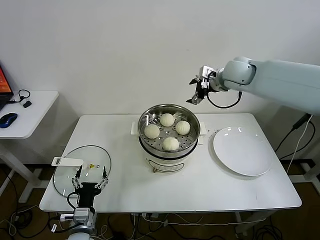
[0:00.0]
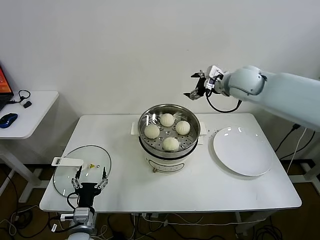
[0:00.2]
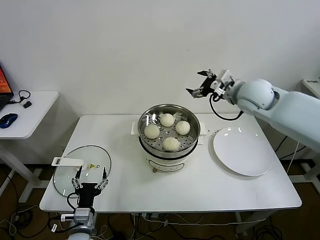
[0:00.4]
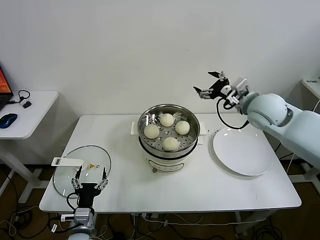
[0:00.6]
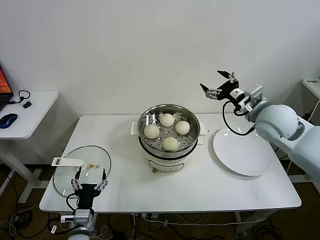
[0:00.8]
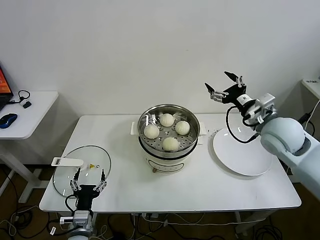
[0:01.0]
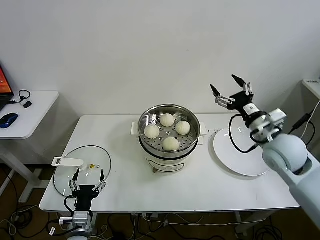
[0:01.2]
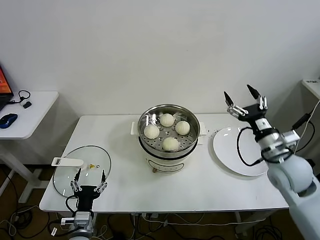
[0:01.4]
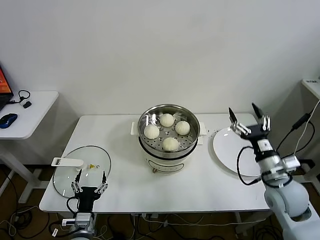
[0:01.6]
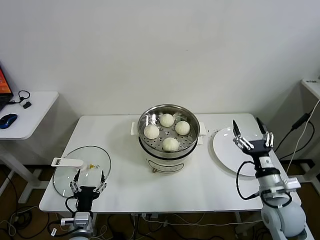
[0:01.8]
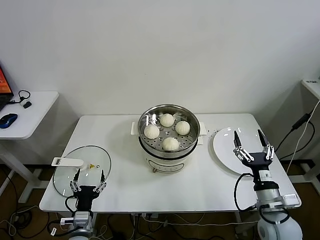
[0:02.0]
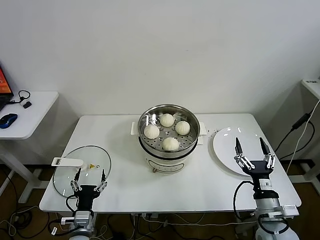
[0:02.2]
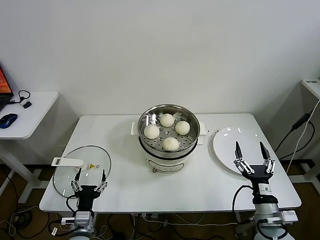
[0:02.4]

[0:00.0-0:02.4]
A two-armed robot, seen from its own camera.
Task of the whole recording: take steamed baozi put them in steamer.
0:00.0 to 0:01.2: The right gripper heads backward and downward, covering about 25 cm.
0:01.2 to 0:02.4: The right gripper goes some 25 cm downward and backward.

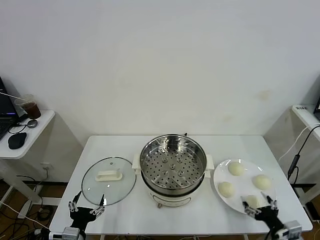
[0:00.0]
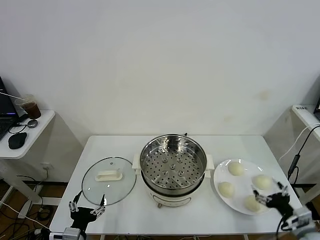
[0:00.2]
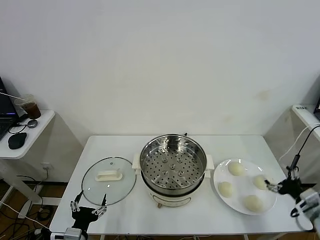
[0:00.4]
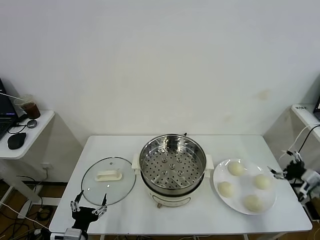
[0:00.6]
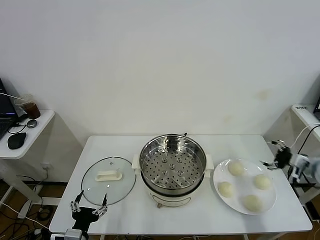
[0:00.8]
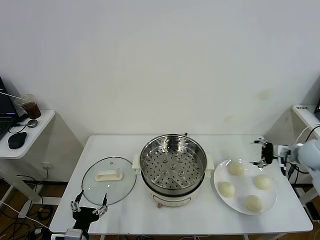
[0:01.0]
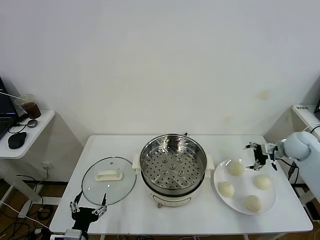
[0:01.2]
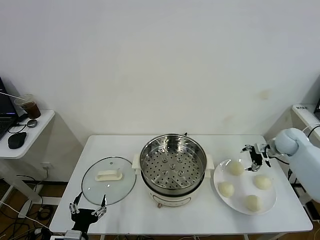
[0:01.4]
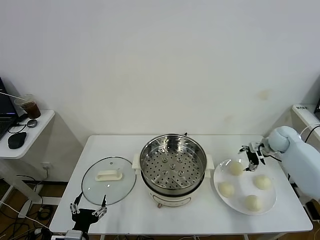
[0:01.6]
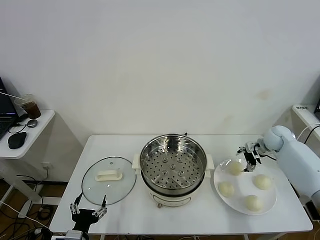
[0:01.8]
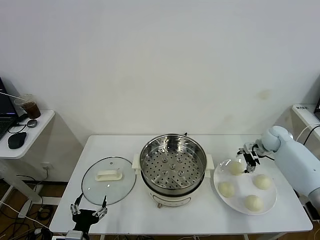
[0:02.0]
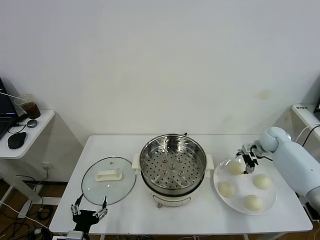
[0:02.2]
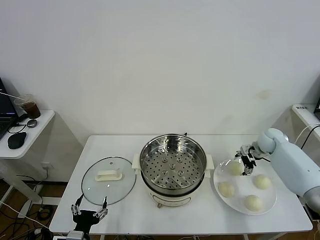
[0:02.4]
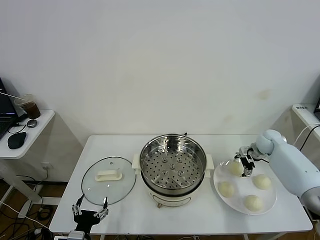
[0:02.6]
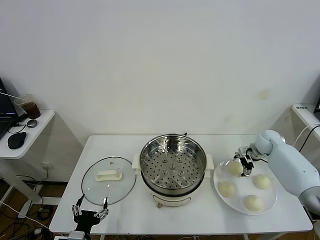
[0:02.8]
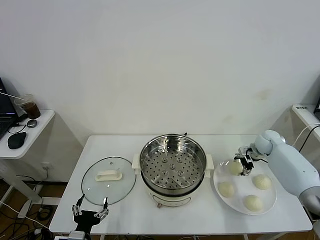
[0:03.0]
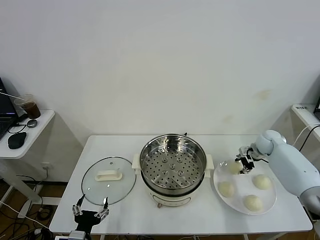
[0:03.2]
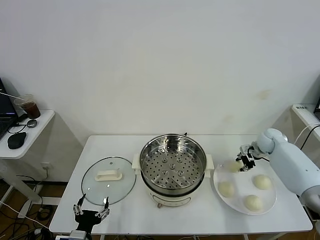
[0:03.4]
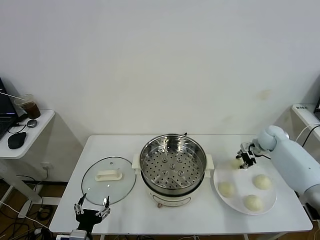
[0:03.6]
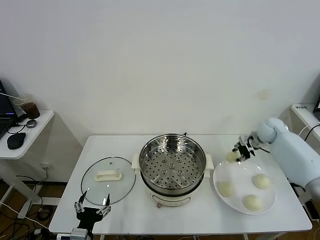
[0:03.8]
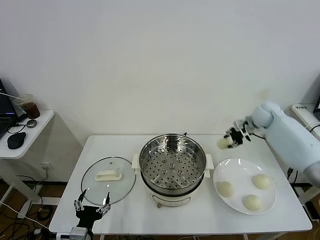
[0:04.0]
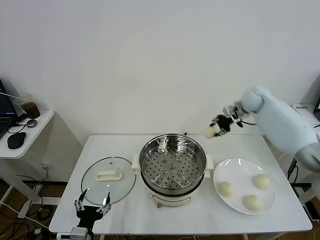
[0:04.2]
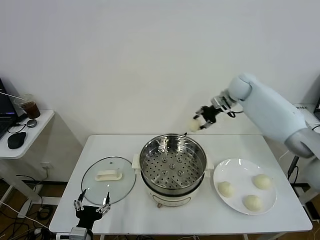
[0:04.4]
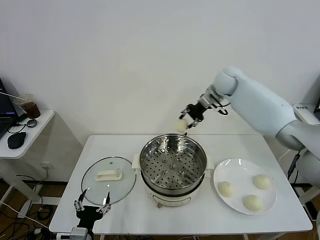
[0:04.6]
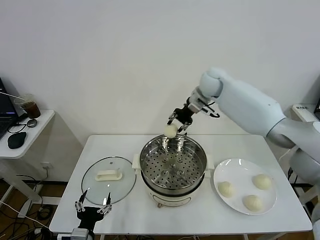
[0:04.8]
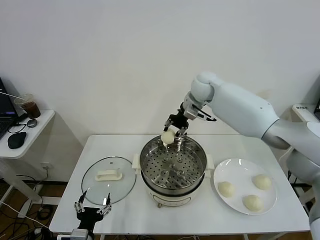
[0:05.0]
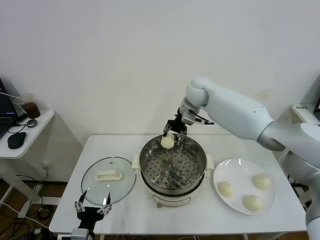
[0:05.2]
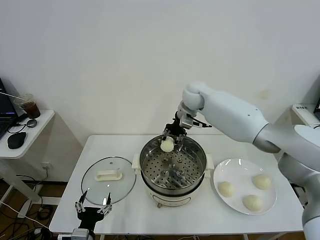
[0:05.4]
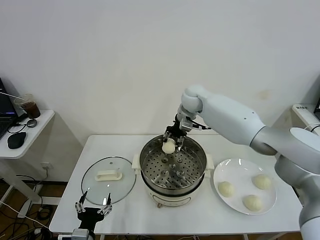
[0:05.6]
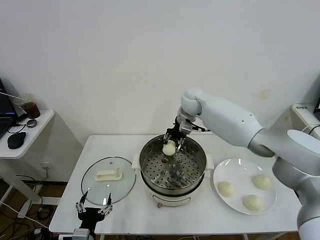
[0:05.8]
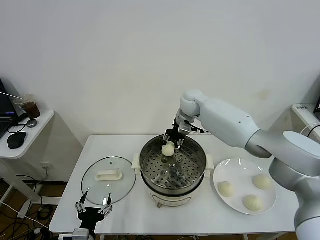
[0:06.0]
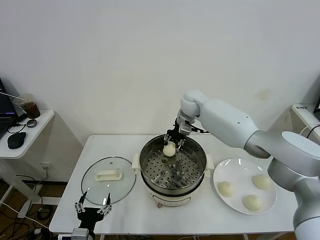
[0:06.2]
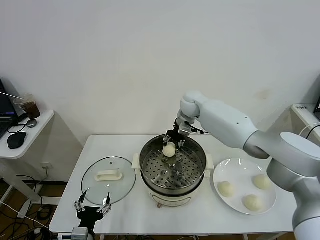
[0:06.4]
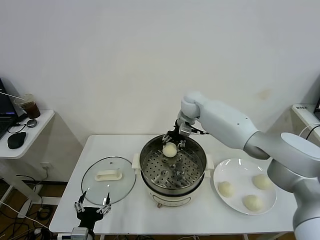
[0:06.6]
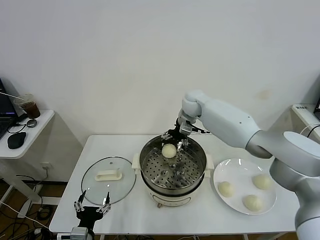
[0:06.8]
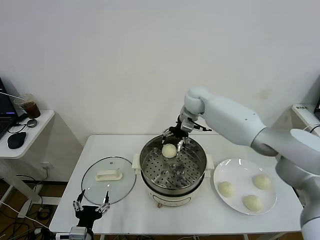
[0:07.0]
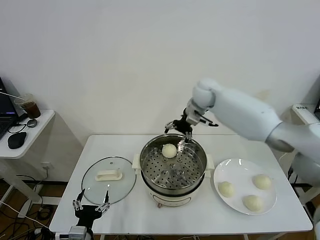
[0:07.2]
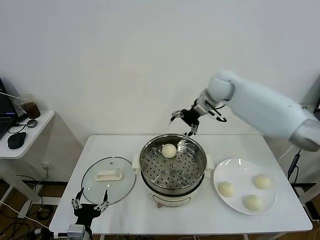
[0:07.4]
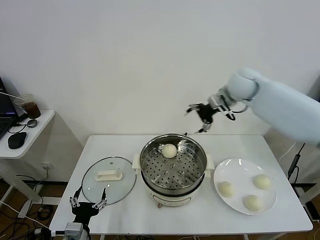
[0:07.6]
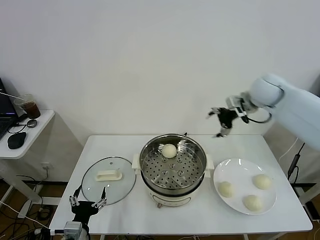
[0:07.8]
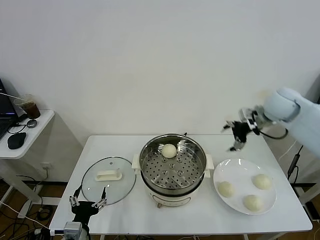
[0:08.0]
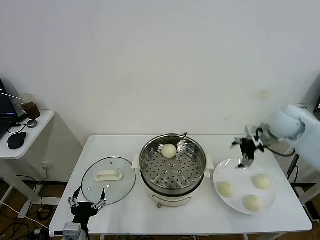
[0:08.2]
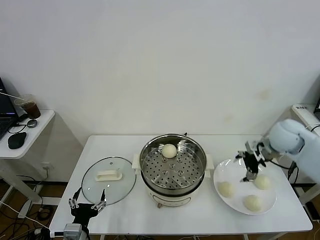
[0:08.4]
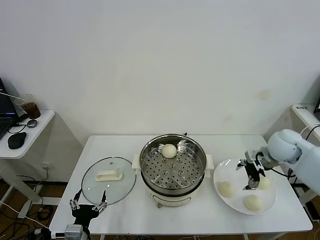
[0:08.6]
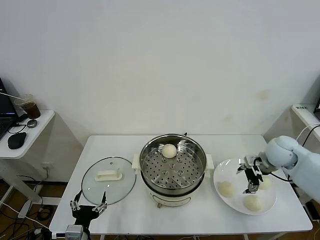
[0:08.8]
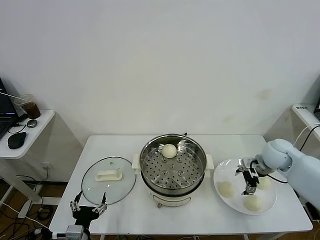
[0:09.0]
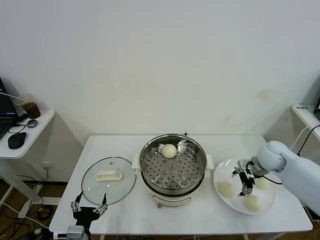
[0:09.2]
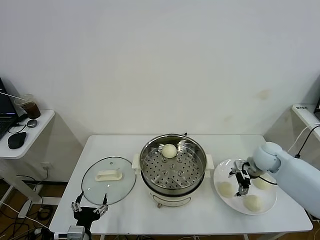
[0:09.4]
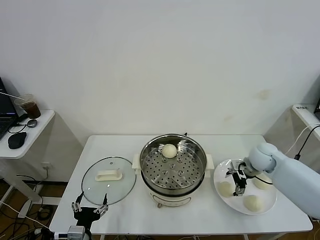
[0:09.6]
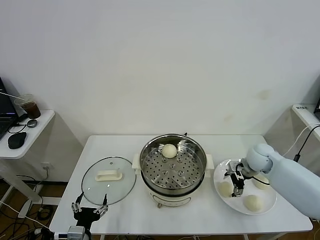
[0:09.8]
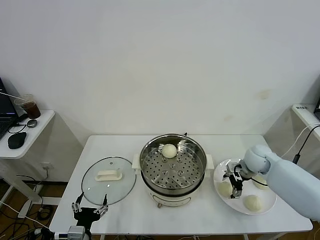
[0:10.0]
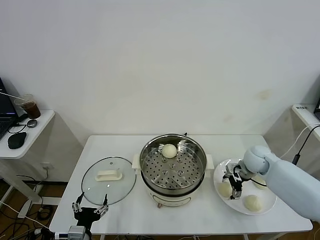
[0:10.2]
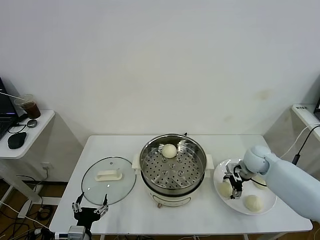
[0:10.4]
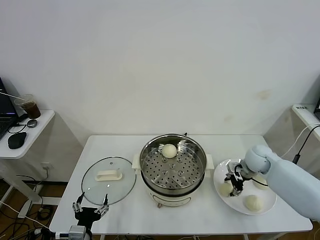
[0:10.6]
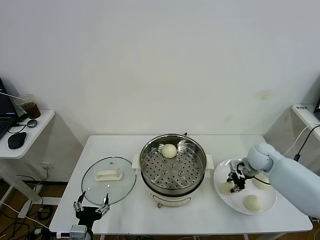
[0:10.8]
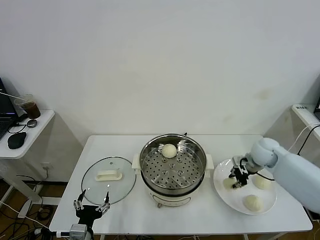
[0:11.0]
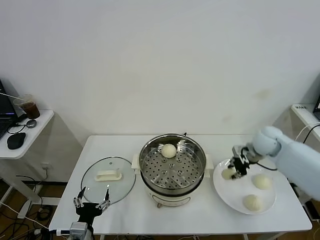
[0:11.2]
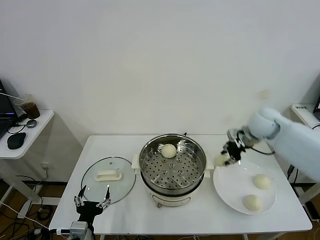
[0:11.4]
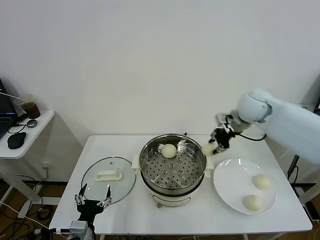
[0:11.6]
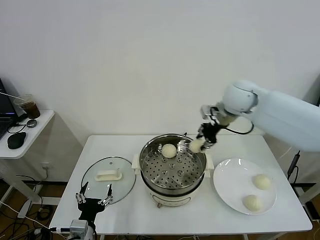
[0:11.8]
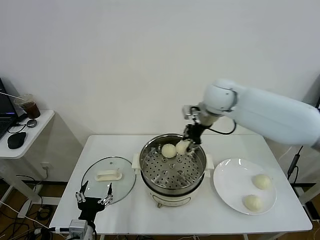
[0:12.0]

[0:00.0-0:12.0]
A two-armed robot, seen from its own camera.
Task of the whole recording: take steamed baozi put them in steamer.
Step, 0:00.0 to 0:03.2: Grasp the baozi in the plate with right gripper.
Step, 0:03.4 to 0:07.0: Place the baozi on the steamer with right gripper.
Step, 0:07.2 to 0:10.8: Grasp the baozi in the plate with right gripper.
0:01.6 to 0:03.0: The right gripper ends up some 5 cm from where it was.
0:03.0 to 0:04.4: The right gripper travels upward, to the left and forward by roughly 25 cm, and closes up.
0:04.4 to 0:06.0: The right gripper goes some 15 cm to the left.
0:06.0 to 0:07.6: The right gripper goes about 20 cm to the right and upward, and opens up.
0:07.6 to 0:09.0: The right gripper goes roughly 25 cm downward, backward and to the right.
0:09.0 to 0:10.4: The right gripper shifts about 5 cm downward.
0:10.4 to 0:12.0: The right gripper travels upward and to the left by about 30 cm, and closes its fingers.

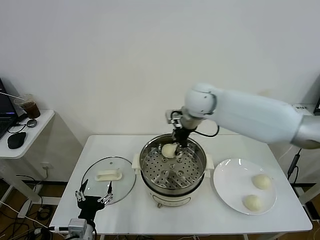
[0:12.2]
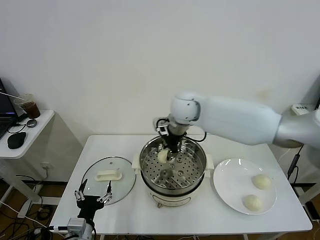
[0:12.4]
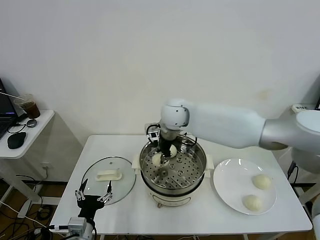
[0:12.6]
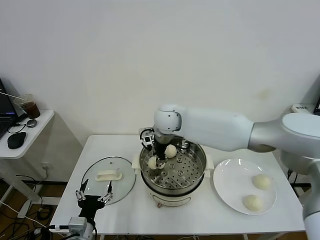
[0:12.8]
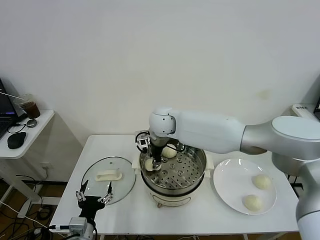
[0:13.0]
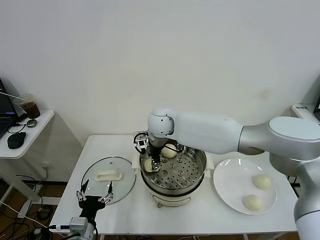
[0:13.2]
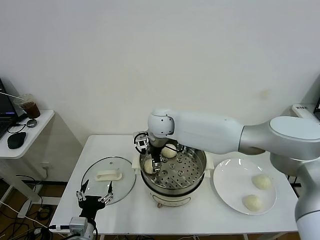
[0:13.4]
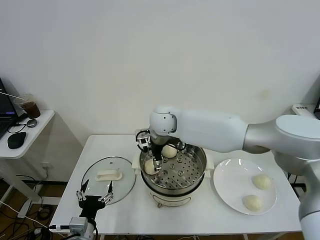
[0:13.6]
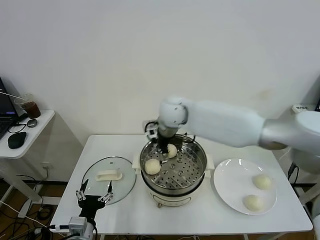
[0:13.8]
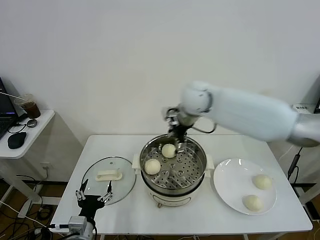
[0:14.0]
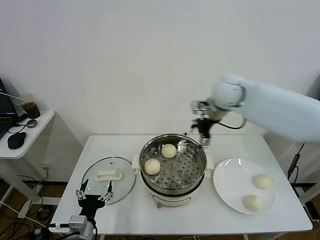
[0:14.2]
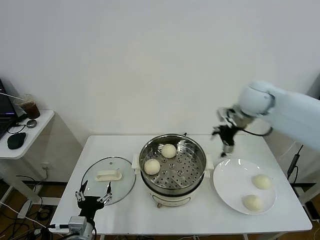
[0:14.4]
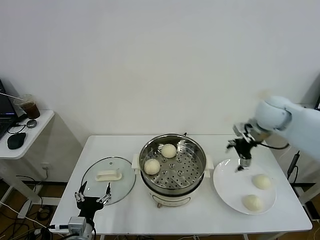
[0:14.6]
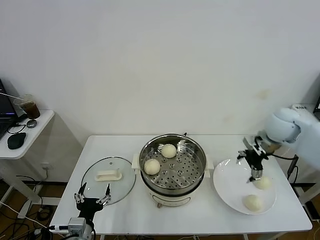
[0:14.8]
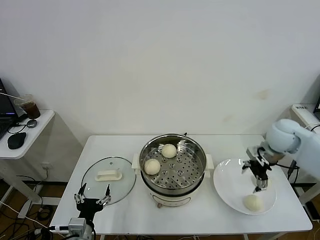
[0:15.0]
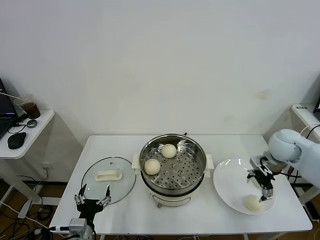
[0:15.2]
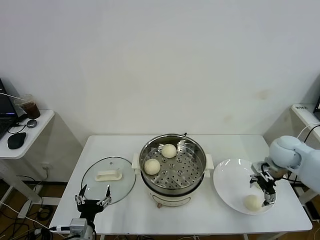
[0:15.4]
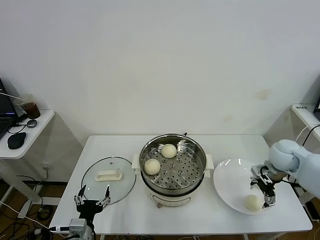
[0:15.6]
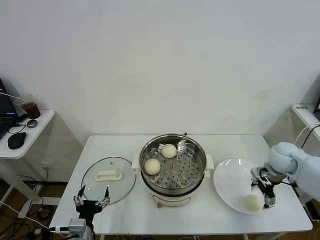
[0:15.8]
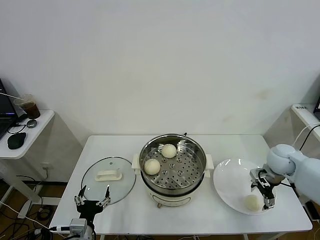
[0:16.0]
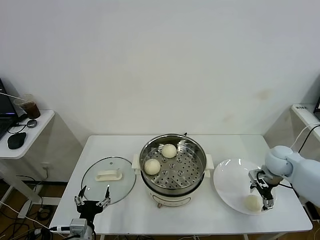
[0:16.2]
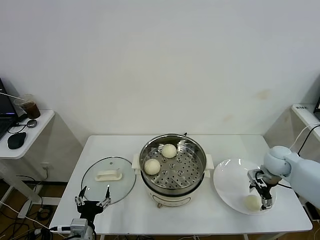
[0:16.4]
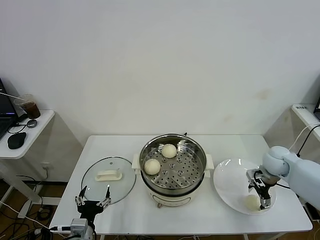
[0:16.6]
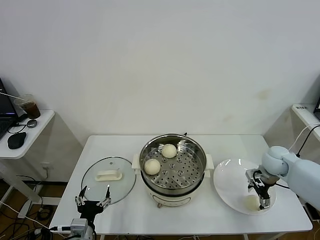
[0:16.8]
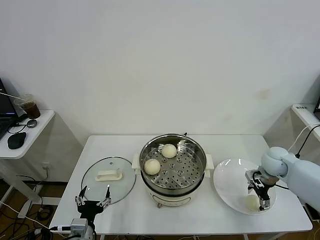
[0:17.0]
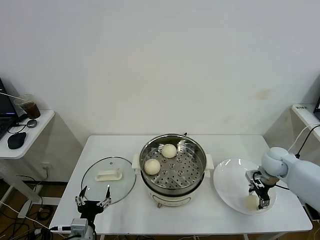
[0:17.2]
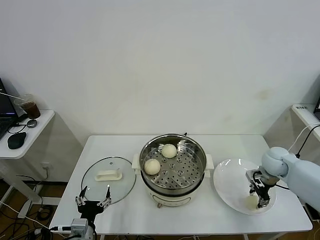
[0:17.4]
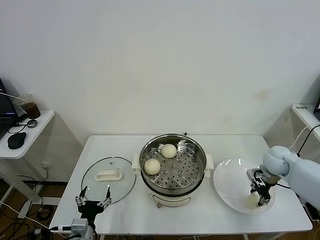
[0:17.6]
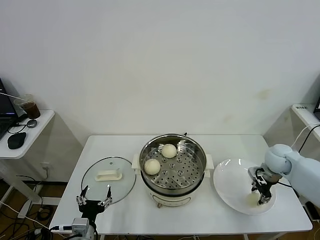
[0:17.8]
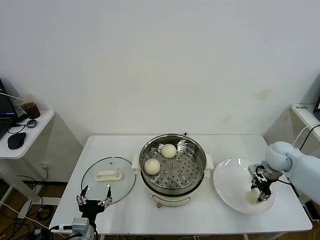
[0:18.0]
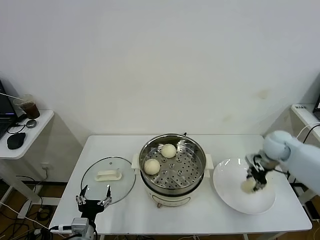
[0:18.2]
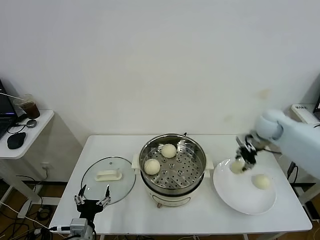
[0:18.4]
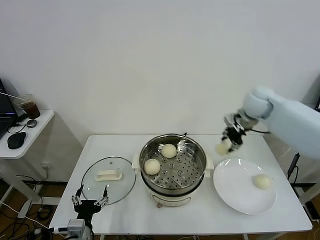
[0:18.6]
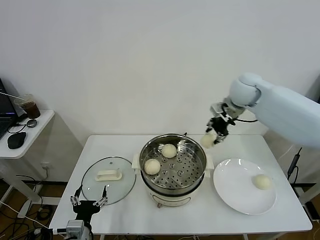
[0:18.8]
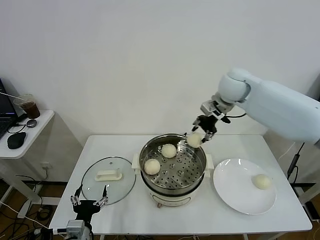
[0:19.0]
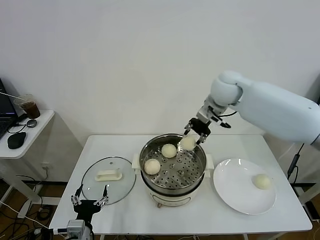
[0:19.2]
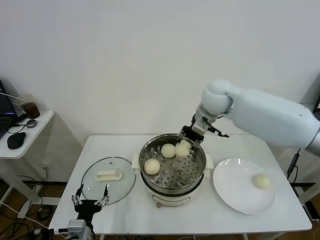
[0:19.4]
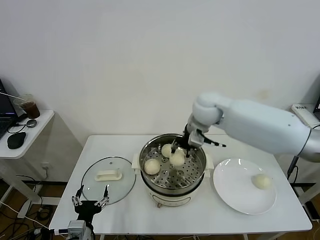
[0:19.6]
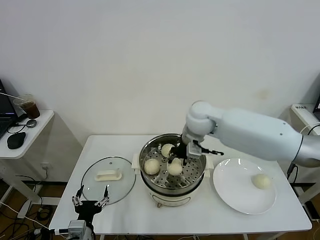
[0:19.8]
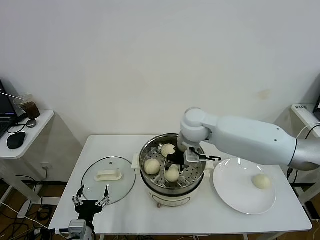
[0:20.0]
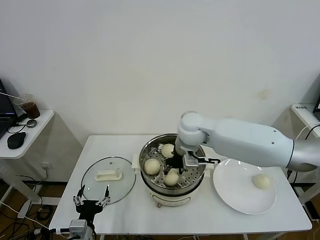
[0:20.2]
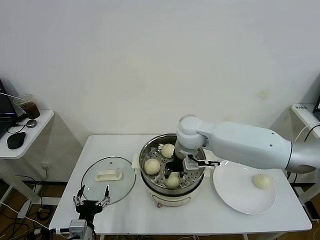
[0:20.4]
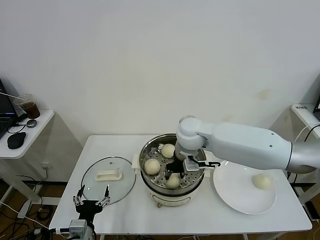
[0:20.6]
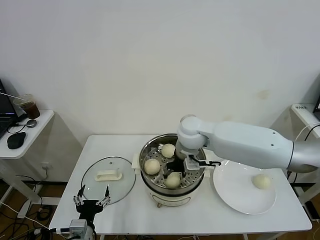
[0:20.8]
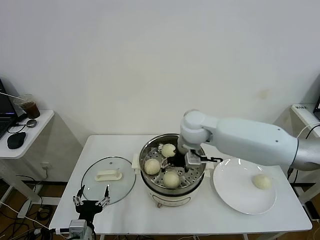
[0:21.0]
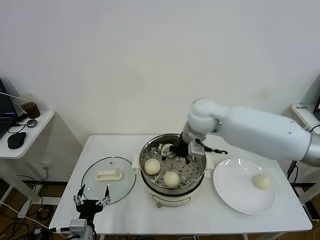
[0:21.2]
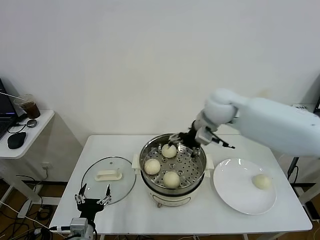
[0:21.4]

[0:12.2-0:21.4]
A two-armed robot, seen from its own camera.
Task of the whole recording: take steamed baozi put them in steamer.
Step, 0:13.6 to 0:17.6: Grasp the baozi in the plate with right gripper.
Step, 0:17.8 to 0:21.0: Place the baozi on the steamer with right gripper.
0:12.2 to 0:13.8: The right gripper moves to the left, about 10 cm, and opens.
0:13.8 to 0:15.2: The right gripper is displaced to the right by roughly 35 cm.
0:15.2 to 0:16.8: The right gripper travels downward by approximately 10 cm.
0:16.8 to 0:18.4: The right gripper shifts roughly 15 cm upward and forward, and closes its fingers.
0:18.4 to 0:19.8: The right gripper moves to the left, about 25 cm.
0:19.8 to 0:21.4: The right gripper moves about 5 cm, and opens up.
